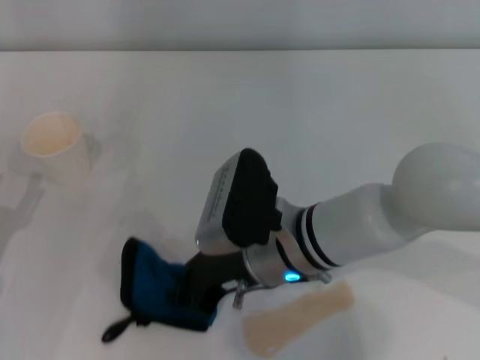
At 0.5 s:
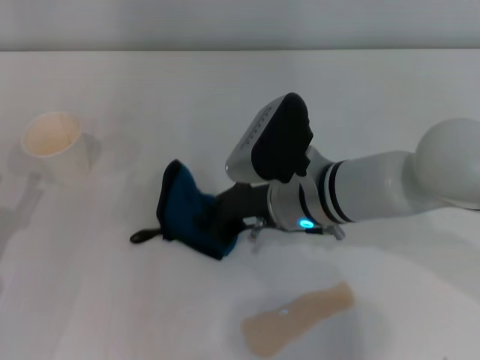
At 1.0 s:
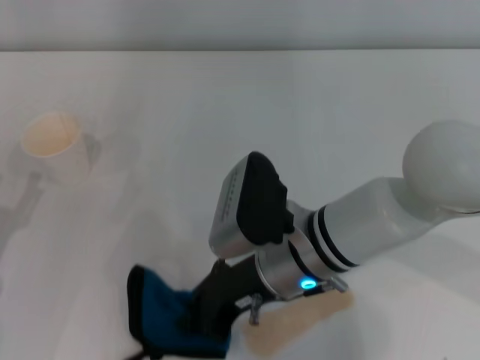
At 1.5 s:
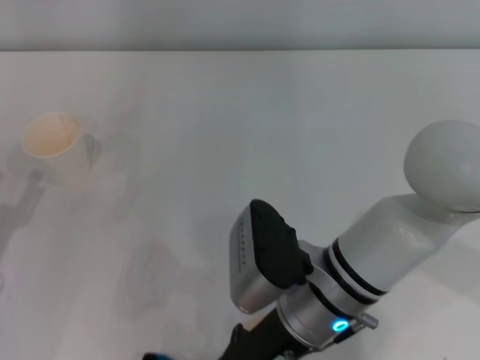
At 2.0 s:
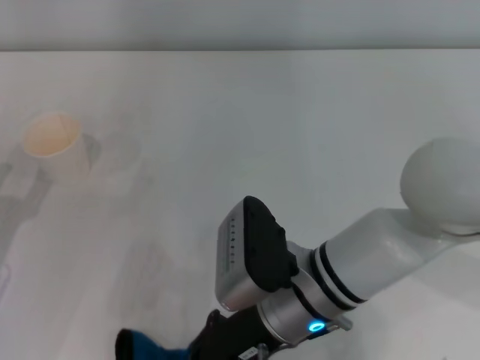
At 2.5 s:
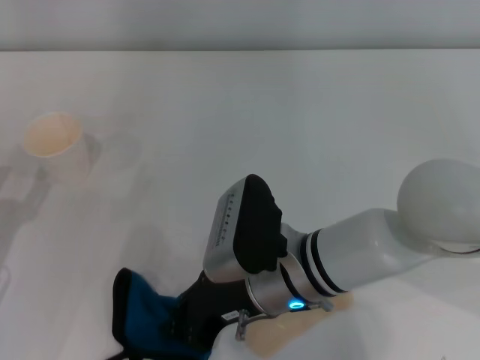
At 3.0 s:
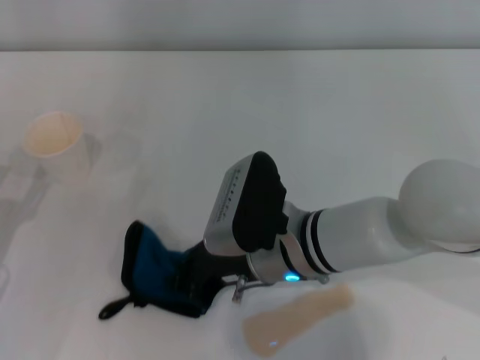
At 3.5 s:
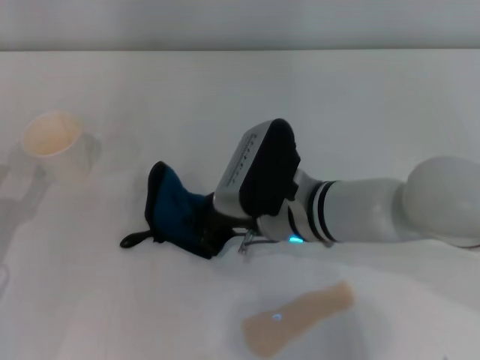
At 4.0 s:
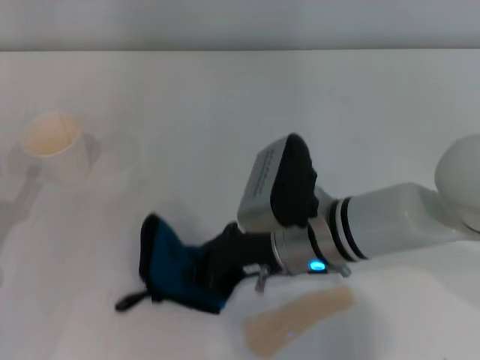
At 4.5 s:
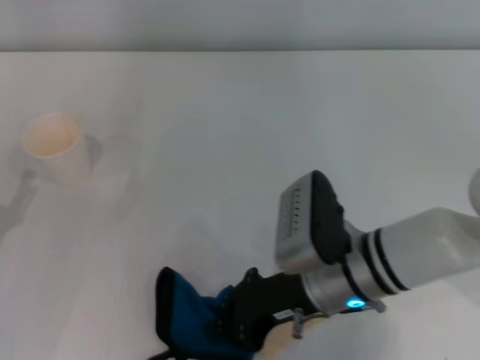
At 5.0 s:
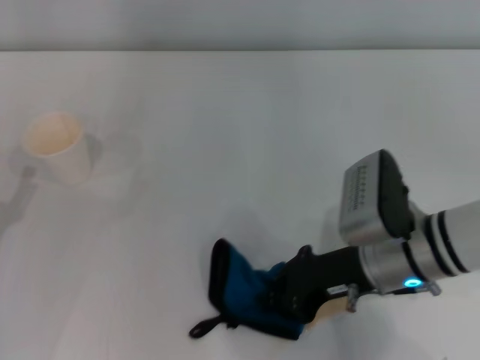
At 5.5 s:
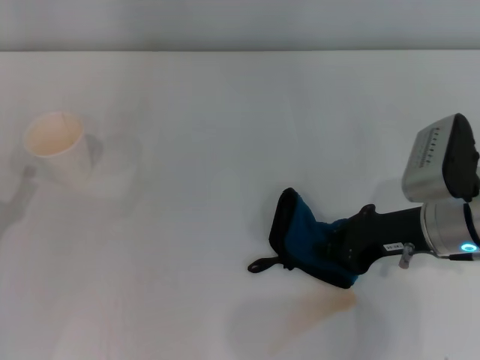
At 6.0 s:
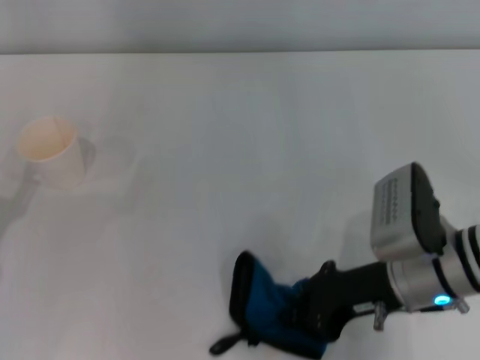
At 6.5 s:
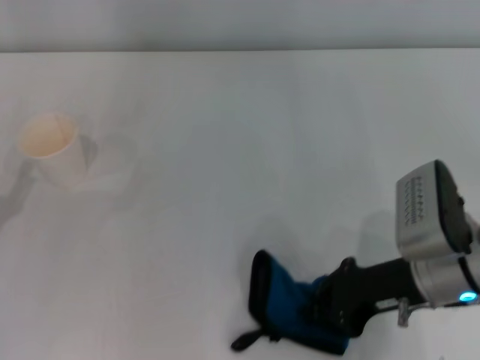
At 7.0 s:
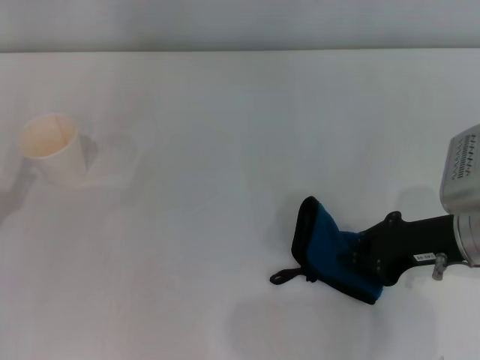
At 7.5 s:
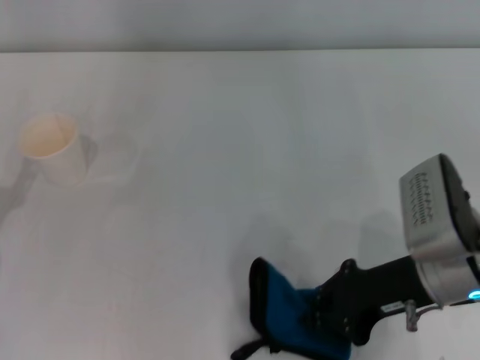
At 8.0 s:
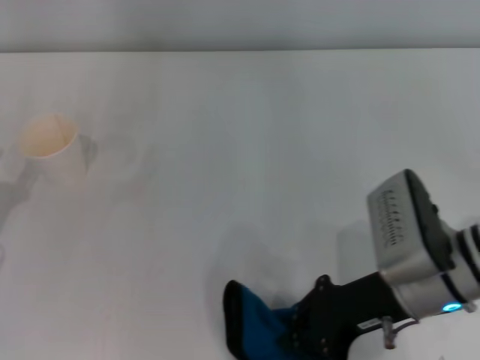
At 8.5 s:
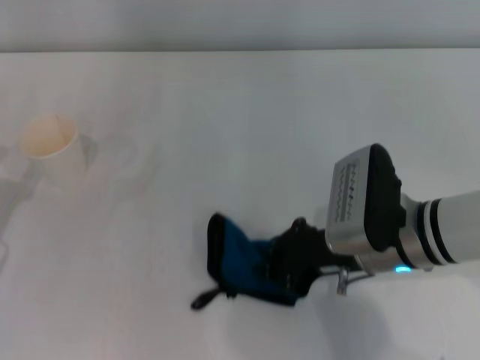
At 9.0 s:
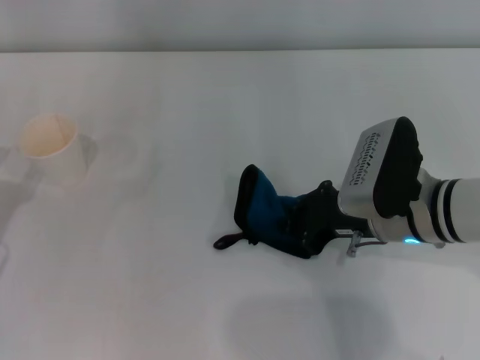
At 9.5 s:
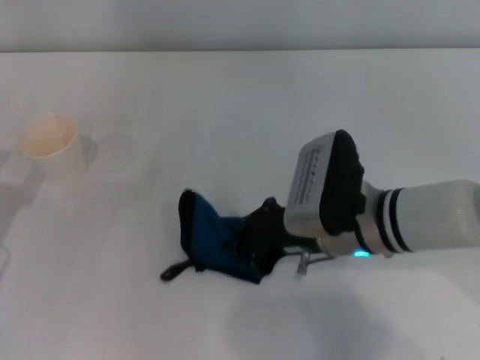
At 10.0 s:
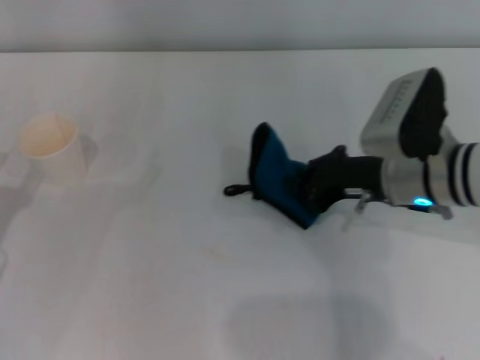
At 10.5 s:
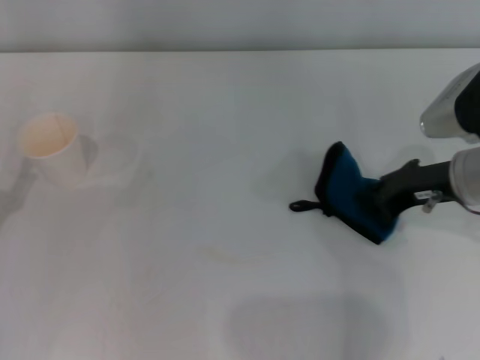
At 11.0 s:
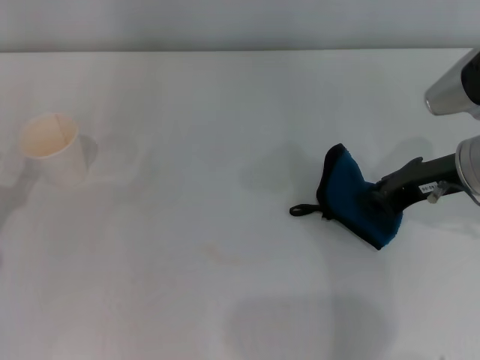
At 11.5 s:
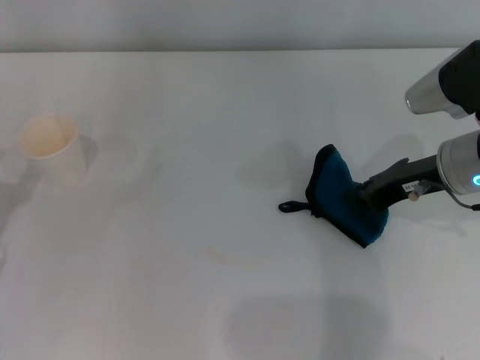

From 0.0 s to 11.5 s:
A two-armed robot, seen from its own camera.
Step, from 0.0 s to 11.5 s: Wipe the stains off the table with the right gripper.
From 4.0 s to 6.0 s: The right gripper shifts some 10 cm to the right.
From 7.5 s to 9.5 s: The right gripper heads to the left, covering approximately 10 cm.
From 9.5 s to 11.5 s: The right gripper is displaced to the right by some 10 cm.

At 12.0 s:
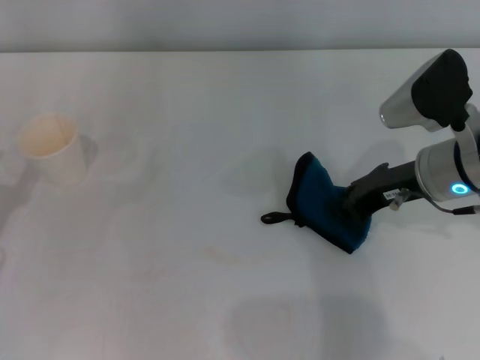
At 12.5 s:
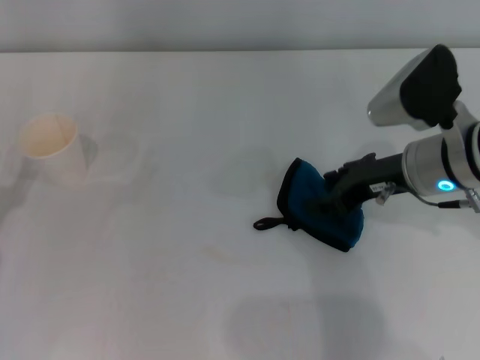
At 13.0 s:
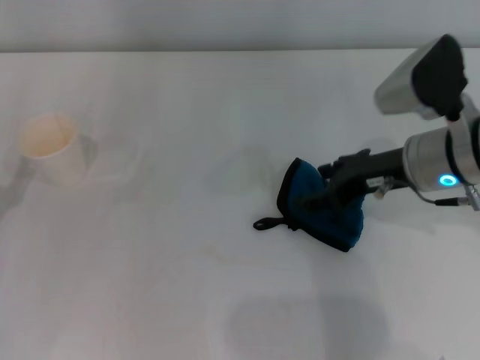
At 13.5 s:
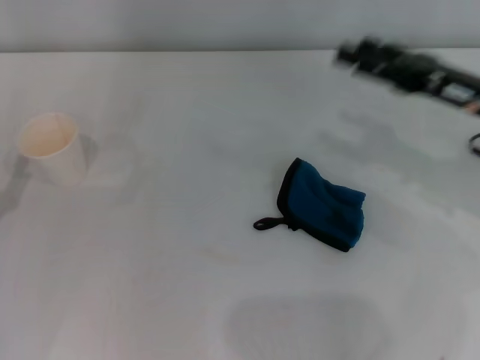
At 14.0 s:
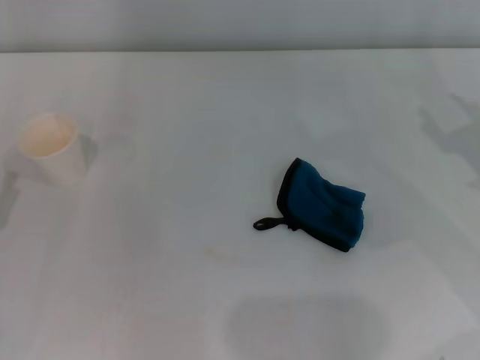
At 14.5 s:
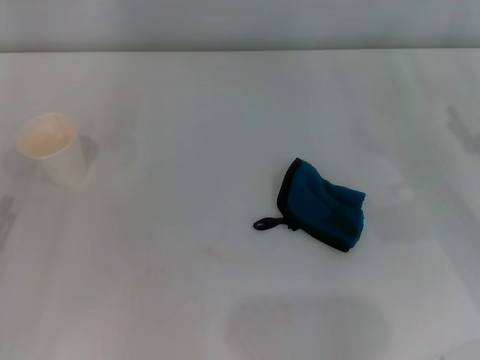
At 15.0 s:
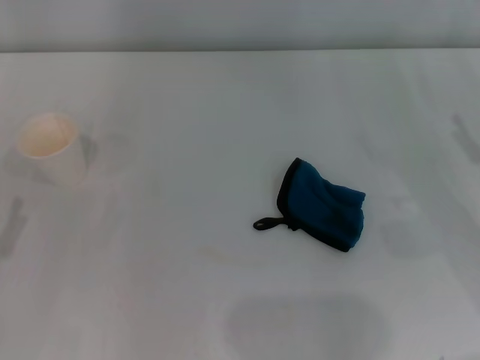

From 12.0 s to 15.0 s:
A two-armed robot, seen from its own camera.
From 12.0 s to 13.5 s: The right gripper shifts about 5 cm to the right, and opens its fingers.
From 13.5 s to 15.0 s: The right gripper travels to the right, downward and backward by approximately 10 cm.

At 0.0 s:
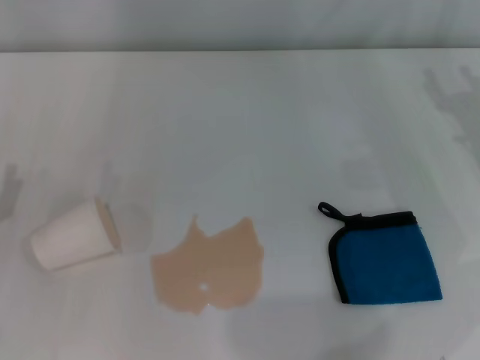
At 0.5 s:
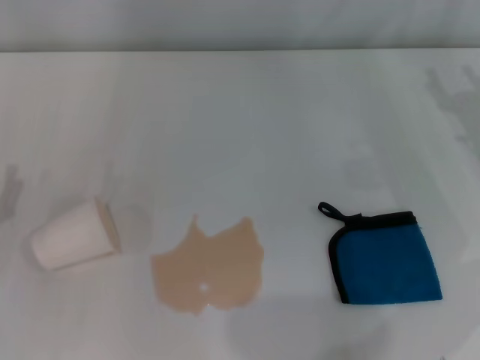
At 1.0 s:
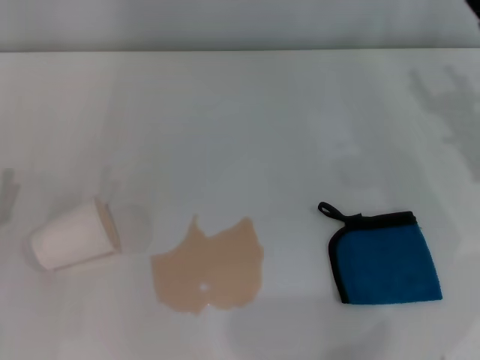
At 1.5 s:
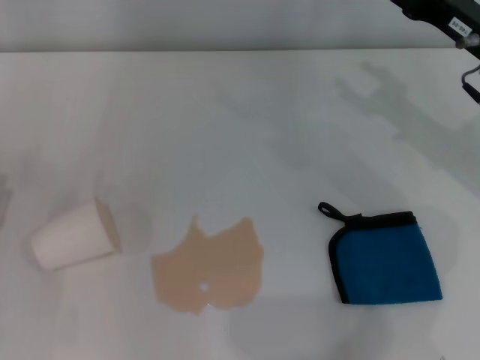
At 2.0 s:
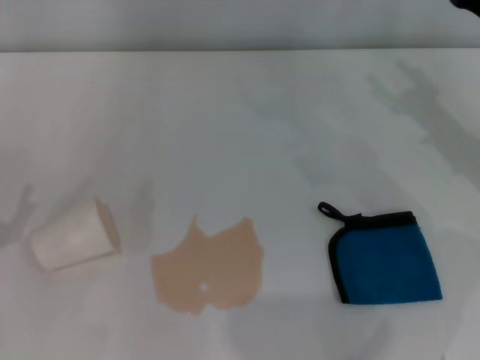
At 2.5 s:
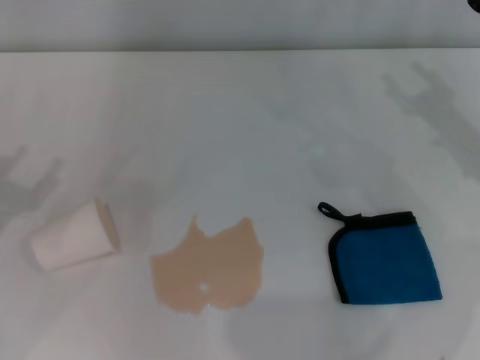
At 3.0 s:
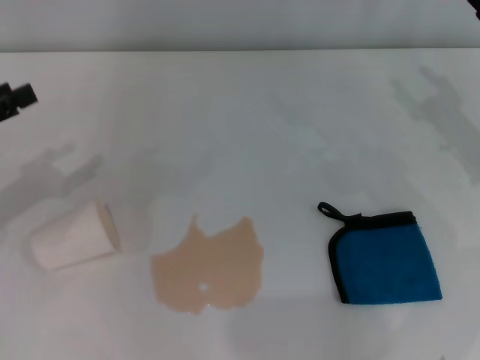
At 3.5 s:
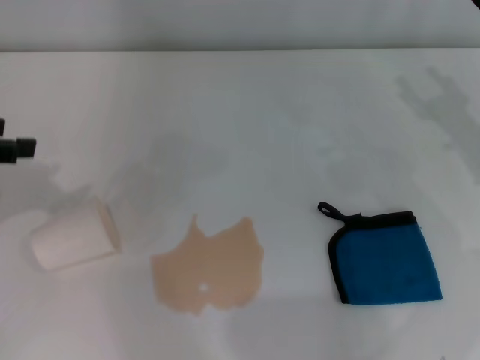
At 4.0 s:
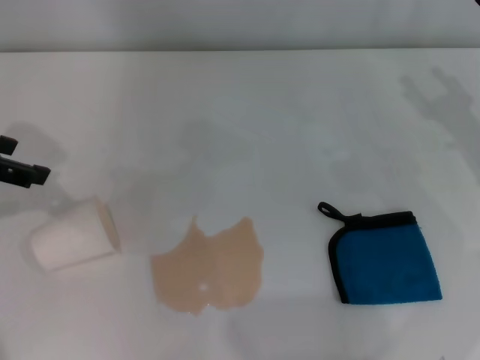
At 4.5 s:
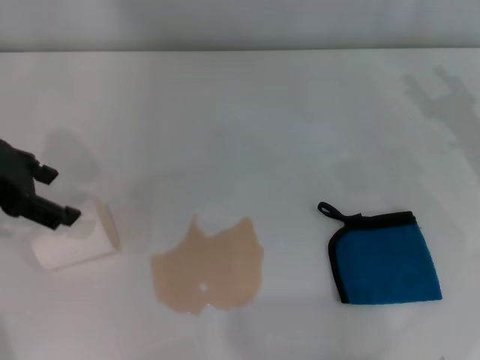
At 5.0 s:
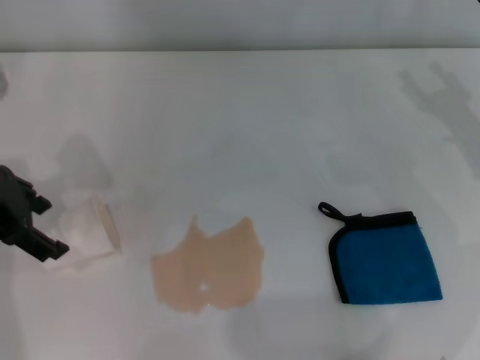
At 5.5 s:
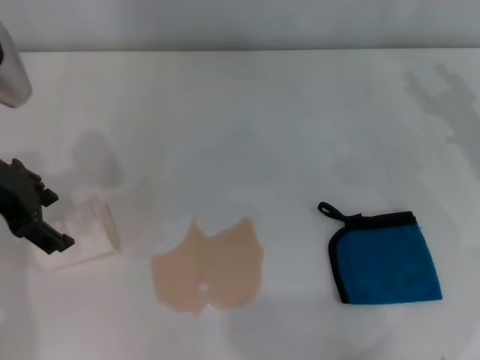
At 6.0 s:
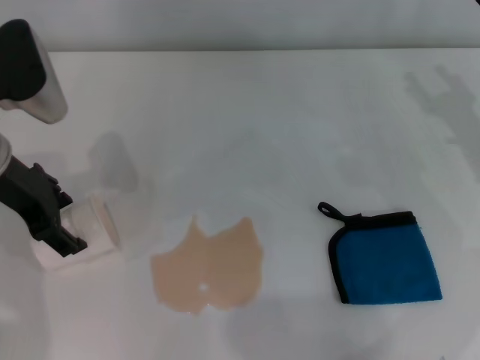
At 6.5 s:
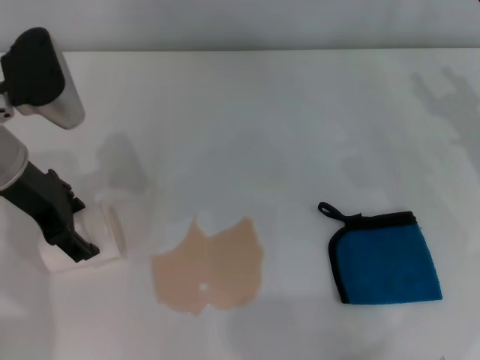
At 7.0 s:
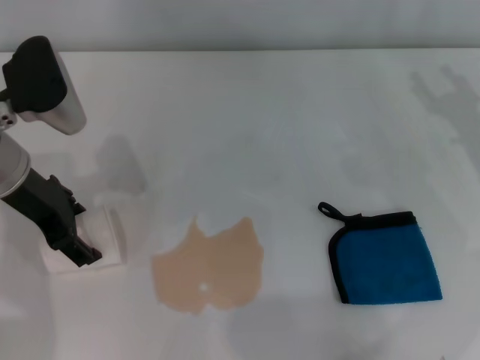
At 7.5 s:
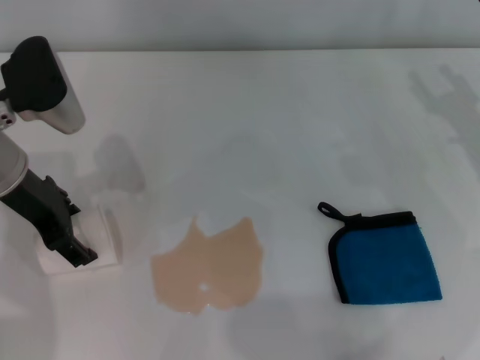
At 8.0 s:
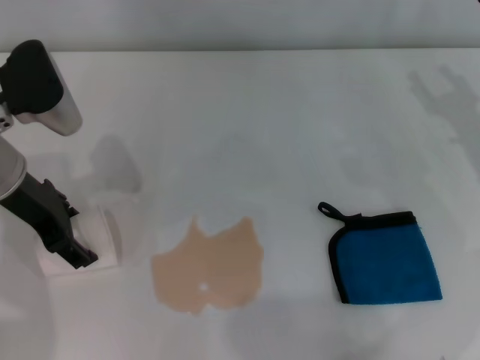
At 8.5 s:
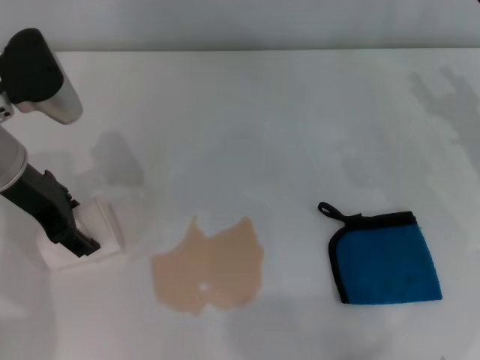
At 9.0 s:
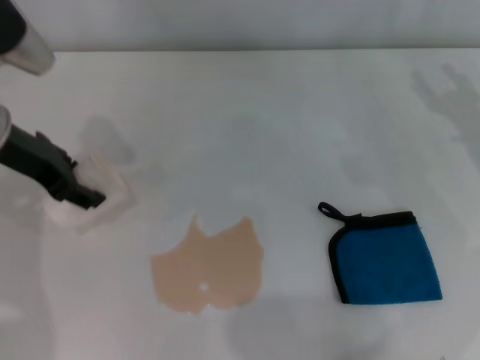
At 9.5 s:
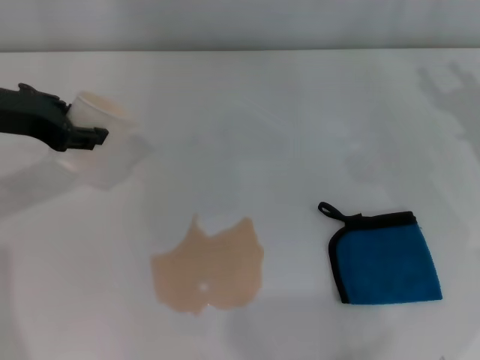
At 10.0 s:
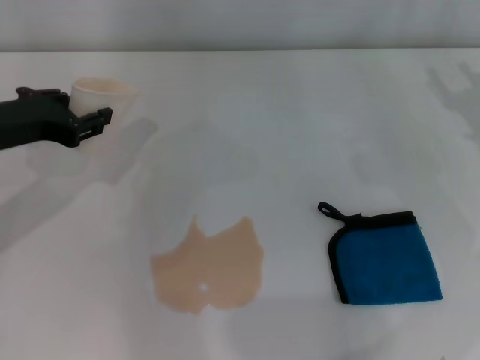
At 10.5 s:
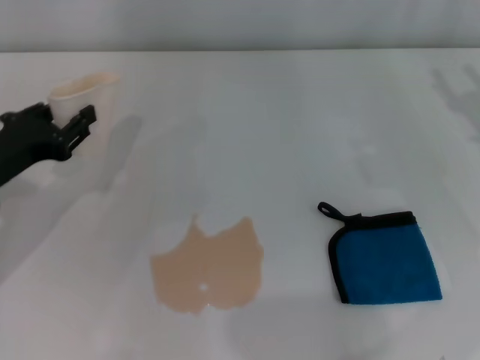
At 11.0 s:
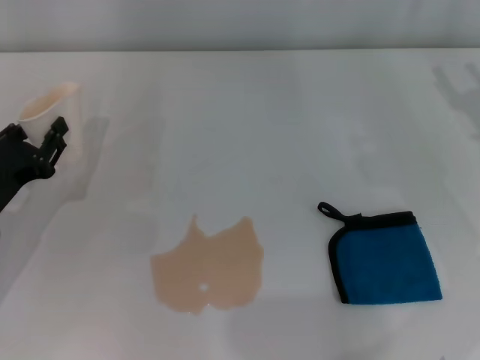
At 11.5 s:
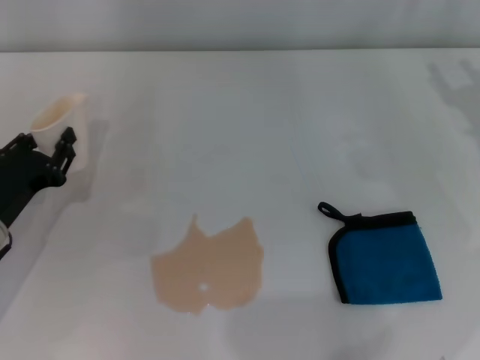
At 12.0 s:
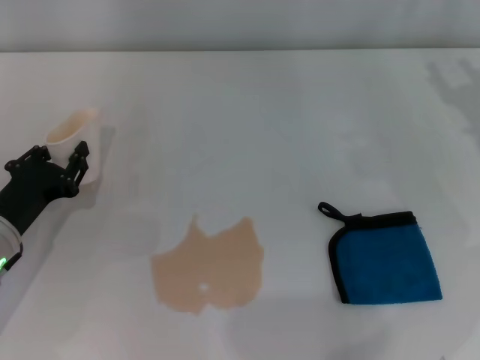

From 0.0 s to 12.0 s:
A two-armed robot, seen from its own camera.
Step, from 0.0 s to 7.0 s: Grasp the paper cup with the left gripper.
From 0.0 s to 2.0 s: The right gripper changes place by roughly 5 cm.
From 2.0 s to 4.0 s: The left gripper is displaced upward and forward by some 25 cm.
From 4.0 s to 6.0 s: The left gripper goes about 10 cm to the right.
From 6.0 s to 8.0 s: The grippers move only a little.
From 8.0 s to 10.0 s: The left gripper closes.
From 10.0 s to 12.0 s: The left gripper goes approximately 15 cm downward.
